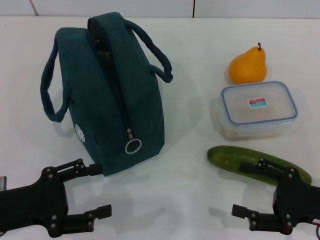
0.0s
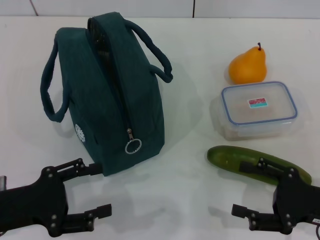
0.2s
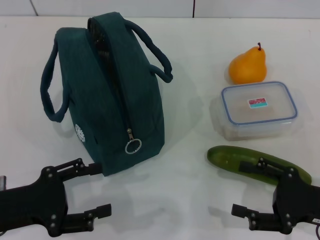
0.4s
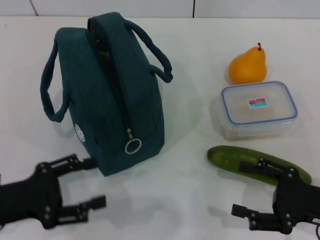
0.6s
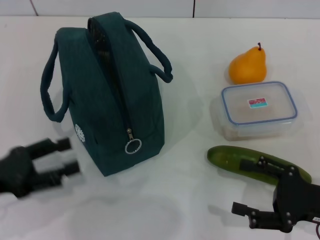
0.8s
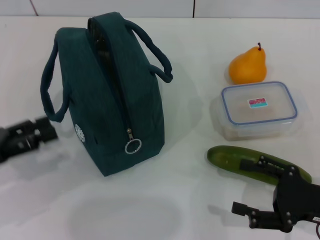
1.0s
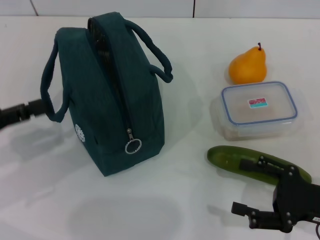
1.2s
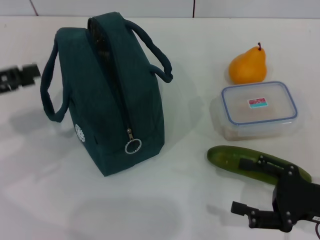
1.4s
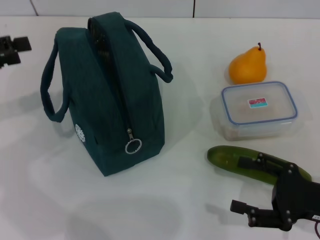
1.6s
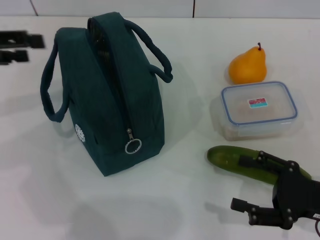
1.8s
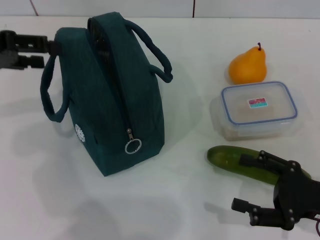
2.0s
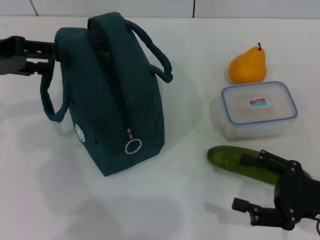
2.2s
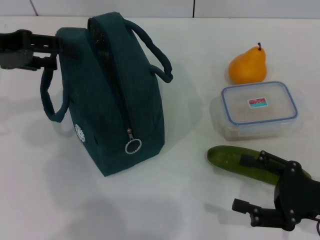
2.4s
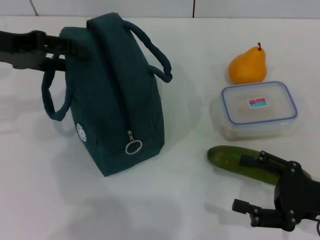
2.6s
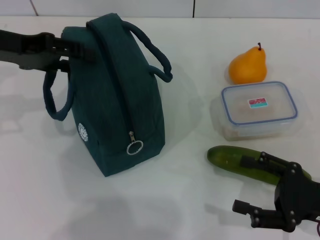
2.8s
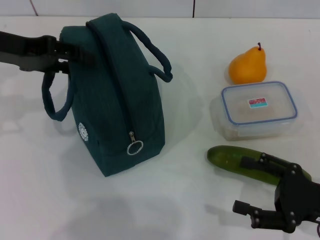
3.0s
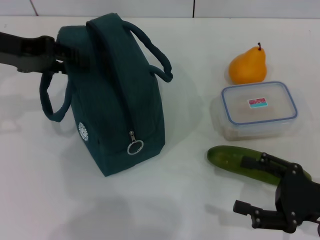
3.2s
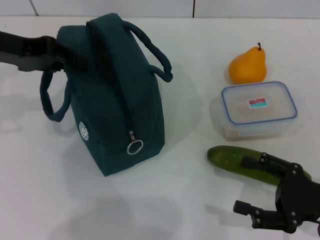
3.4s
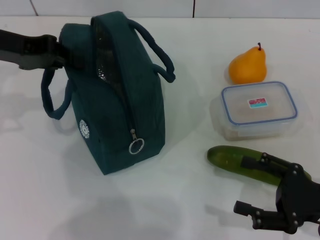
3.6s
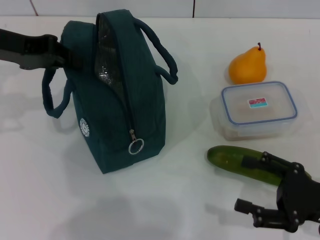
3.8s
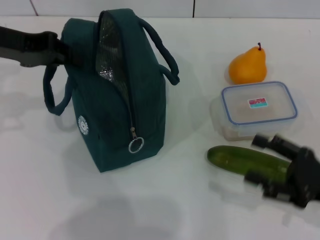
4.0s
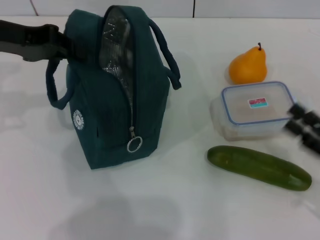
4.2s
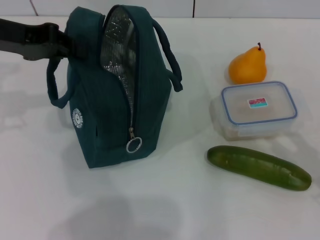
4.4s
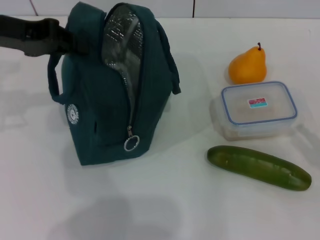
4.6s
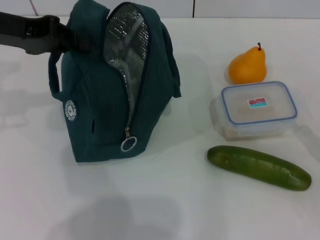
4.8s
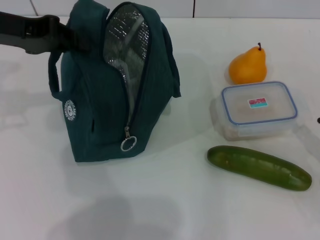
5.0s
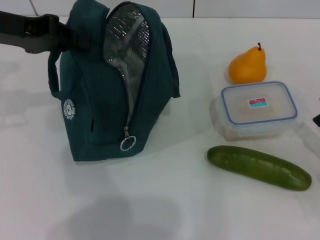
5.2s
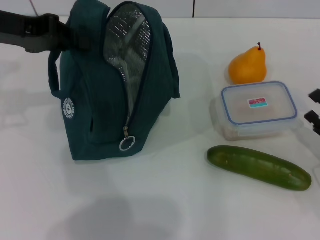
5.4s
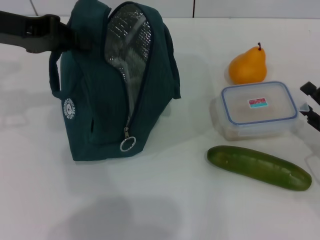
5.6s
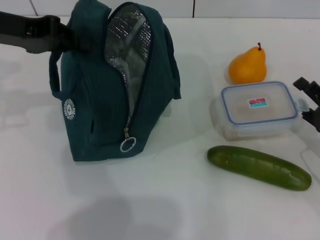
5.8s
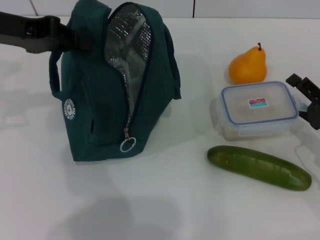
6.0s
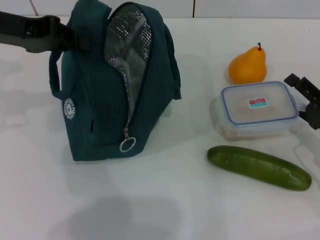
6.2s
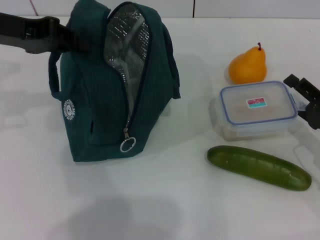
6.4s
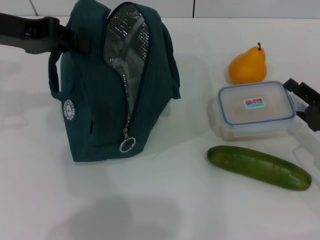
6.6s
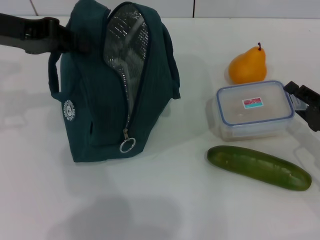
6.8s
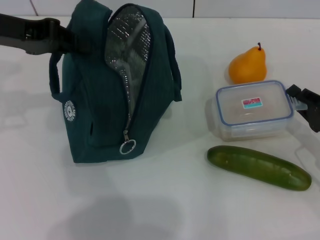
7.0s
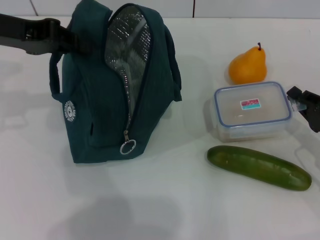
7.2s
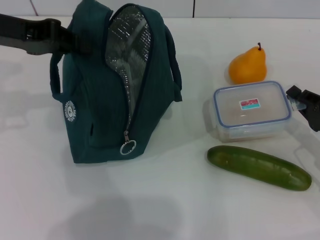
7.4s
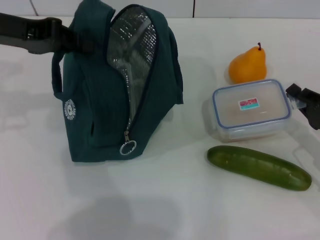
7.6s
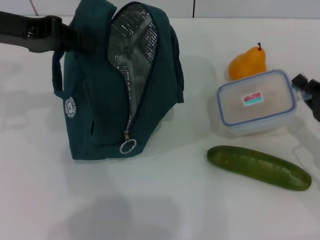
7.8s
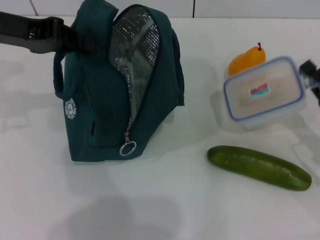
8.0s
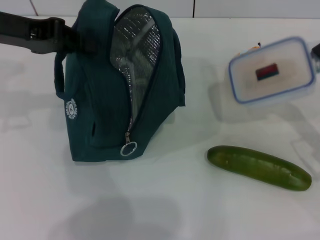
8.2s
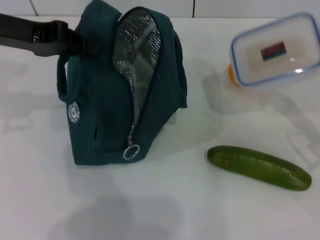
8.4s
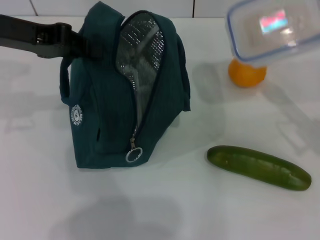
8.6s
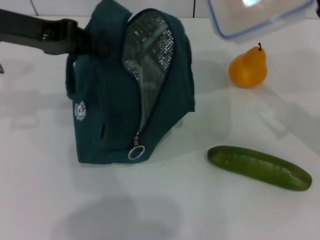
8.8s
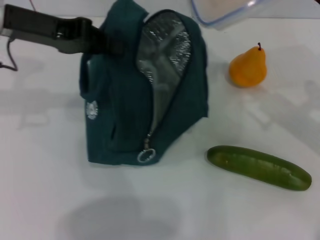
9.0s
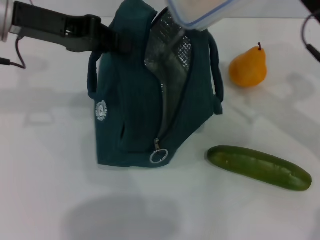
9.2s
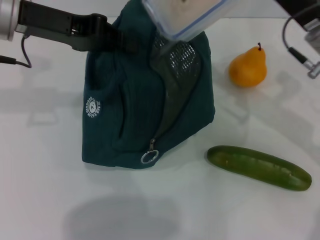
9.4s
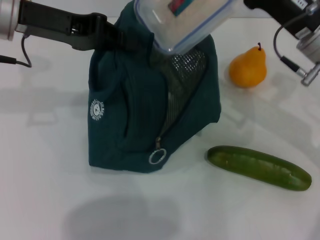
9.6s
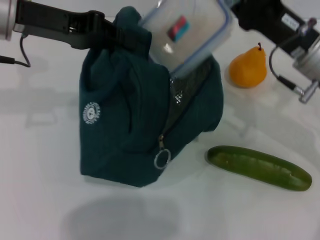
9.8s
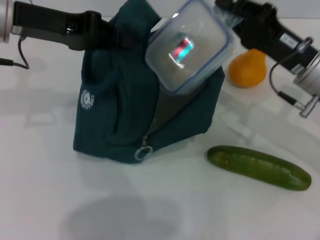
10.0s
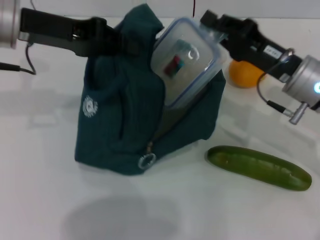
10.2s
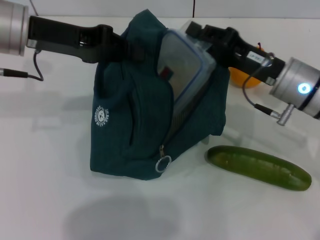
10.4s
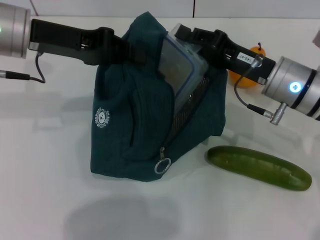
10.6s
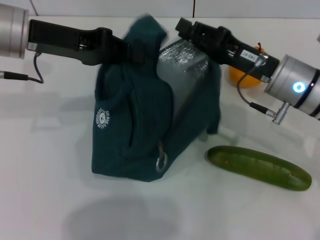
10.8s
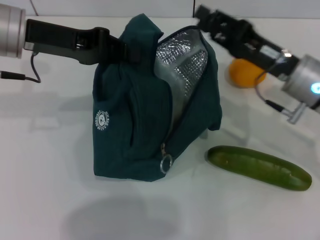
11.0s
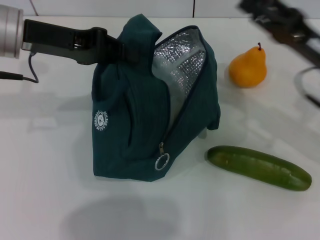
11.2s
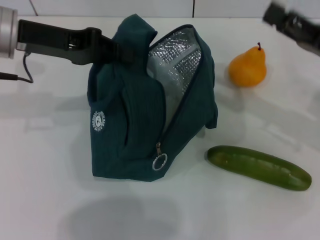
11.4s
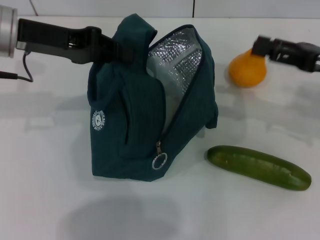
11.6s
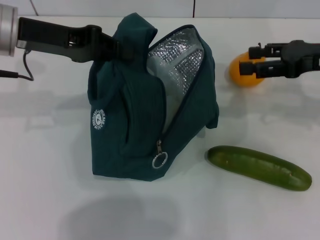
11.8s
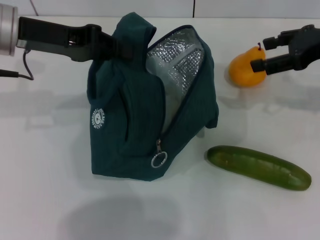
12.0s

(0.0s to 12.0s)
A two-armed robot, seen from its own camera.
Step, 0.0s - 3.6s: Hold the lunch bag with your left hand.
Step, 3.8s - 7.2s: Pick up the lunch box with your right hand.
Step, 7.4s - 11.0s: Place the lunch box into the lunch bag with your right hand.
0.0s - 1.6s: The left gripper goes roughly 20 cm upward, forward and to the left.
1.6s - 3.0s: The left gripper moves to the right and forward, approximately 10 cm.
3.0s - 4.4s: The left gripper closes up. Meanwhile the right gripper changes place by about 5 cm.
4.4s - 6.0s: The right gripper travels forward by approximately 10 cm.
6.0s - 7.6s: The right gripper closes.
7.6s - 9.0s: The right gripper heads upward, forward and to the left, covering about 15 cm.
9.0s - 10.4s: The right gripper is displaced to the left by some 5 cm.
10.4s - 12.0s: The right gripper moves upward and to the right, roughly 15 cm, and opens up.

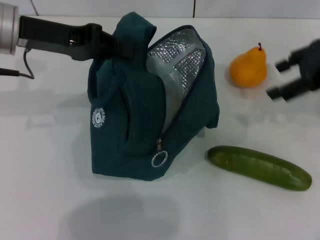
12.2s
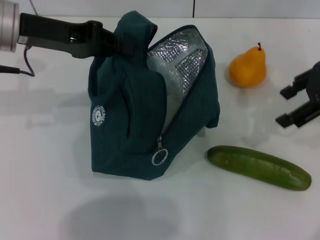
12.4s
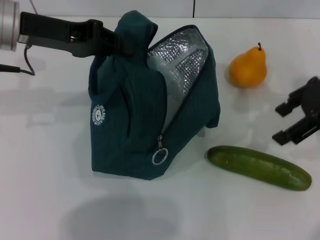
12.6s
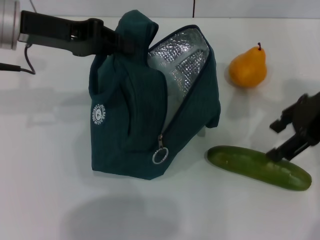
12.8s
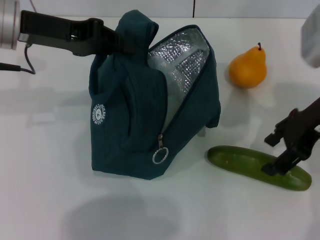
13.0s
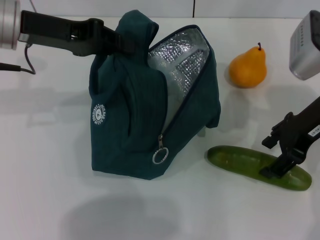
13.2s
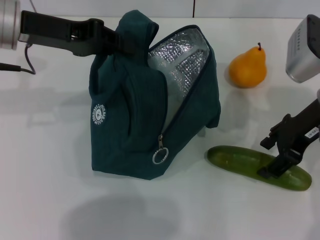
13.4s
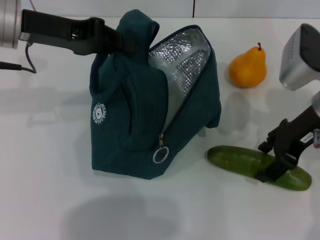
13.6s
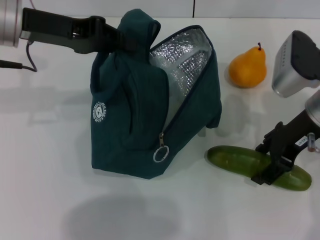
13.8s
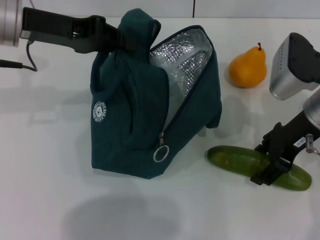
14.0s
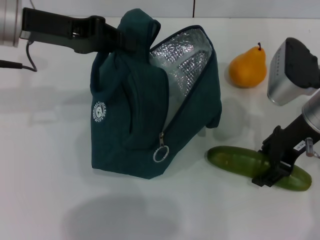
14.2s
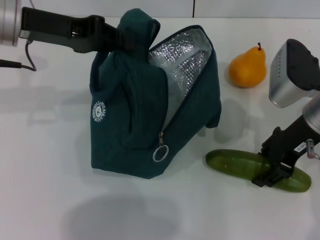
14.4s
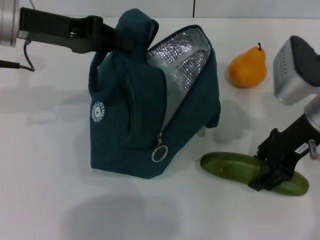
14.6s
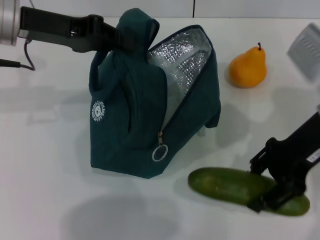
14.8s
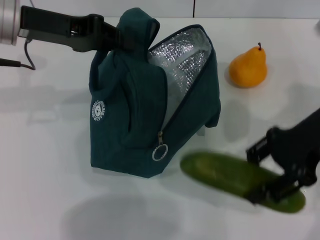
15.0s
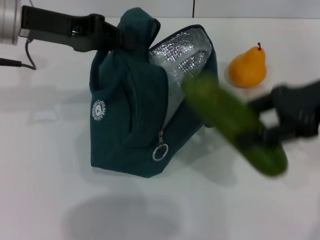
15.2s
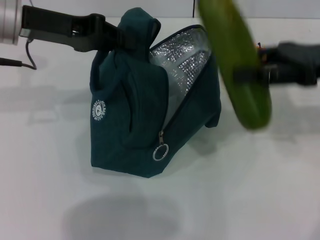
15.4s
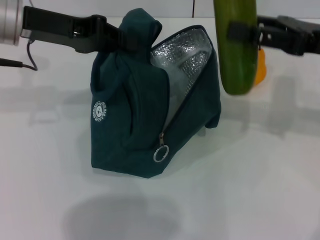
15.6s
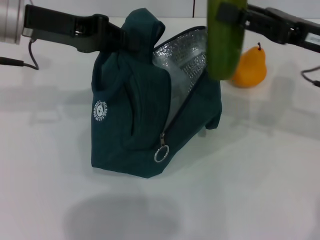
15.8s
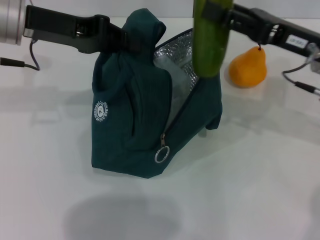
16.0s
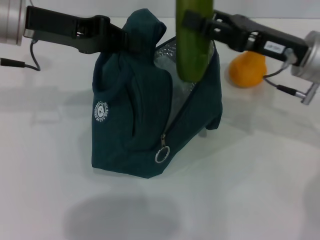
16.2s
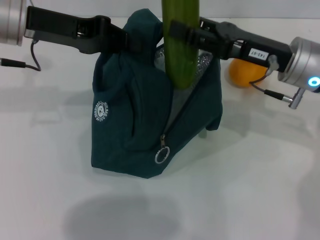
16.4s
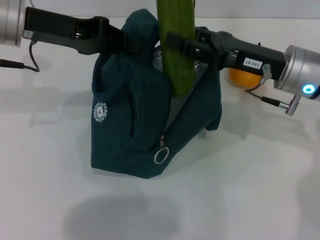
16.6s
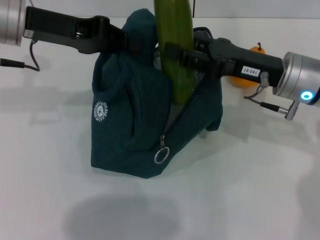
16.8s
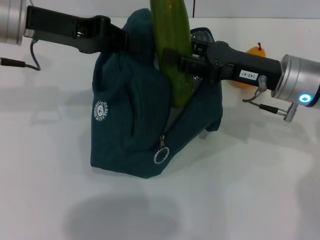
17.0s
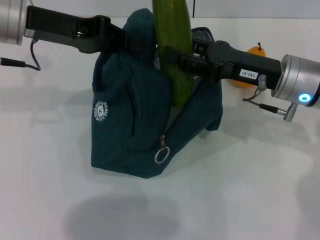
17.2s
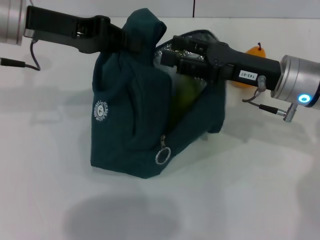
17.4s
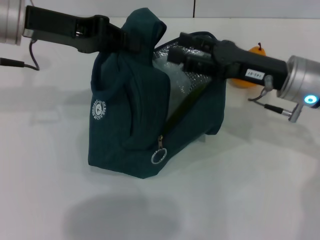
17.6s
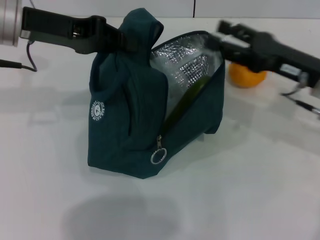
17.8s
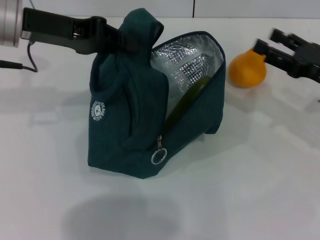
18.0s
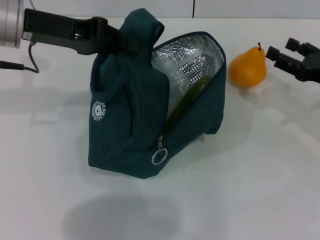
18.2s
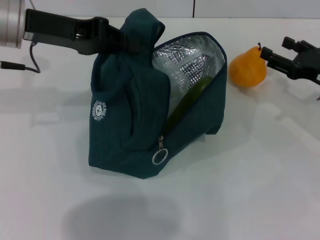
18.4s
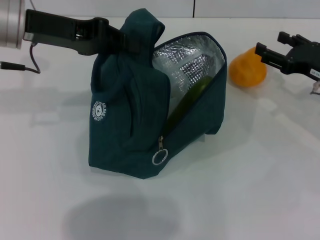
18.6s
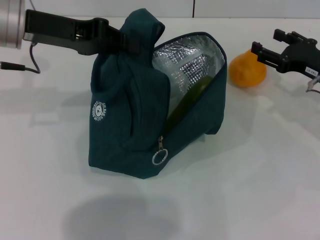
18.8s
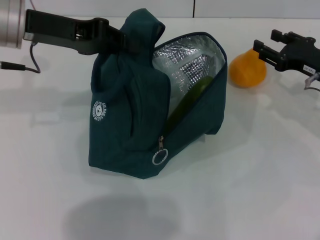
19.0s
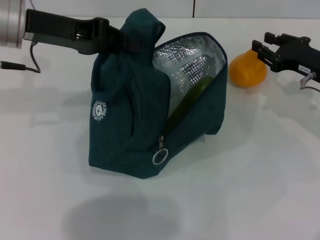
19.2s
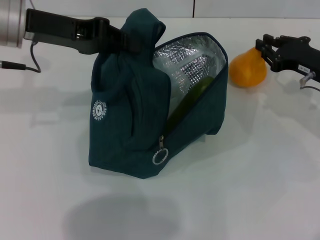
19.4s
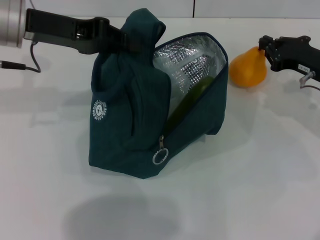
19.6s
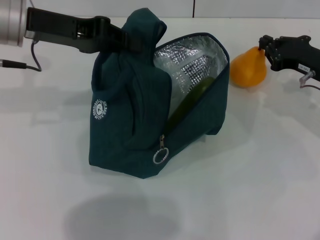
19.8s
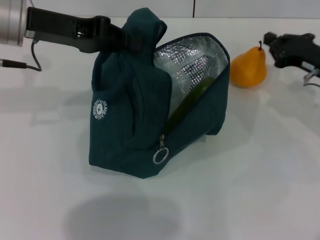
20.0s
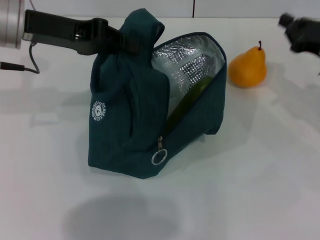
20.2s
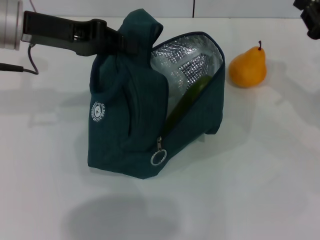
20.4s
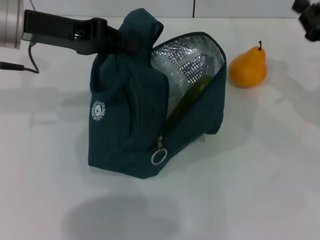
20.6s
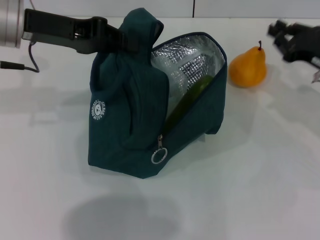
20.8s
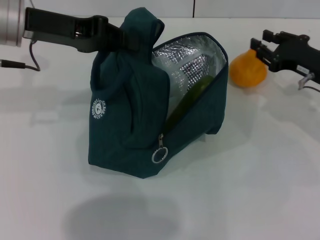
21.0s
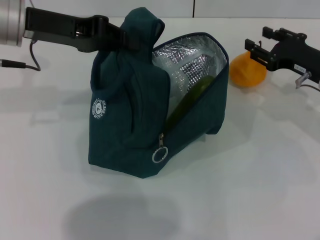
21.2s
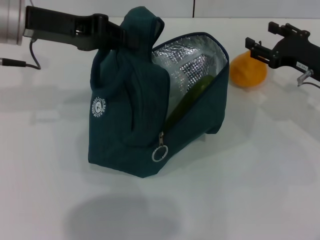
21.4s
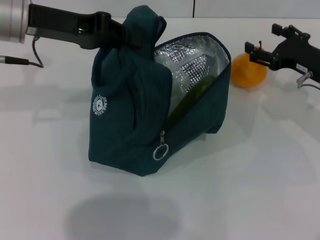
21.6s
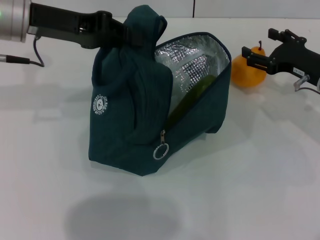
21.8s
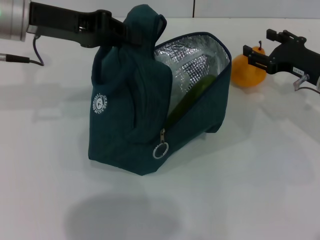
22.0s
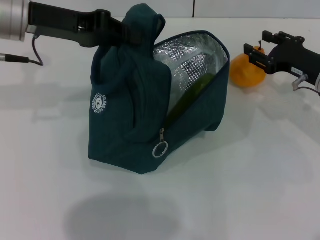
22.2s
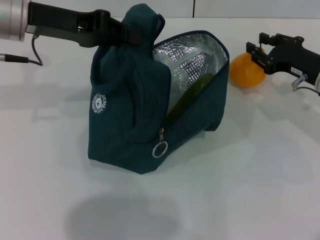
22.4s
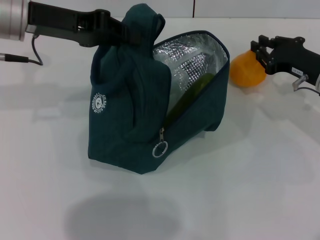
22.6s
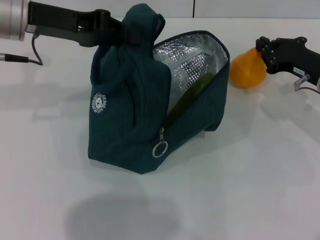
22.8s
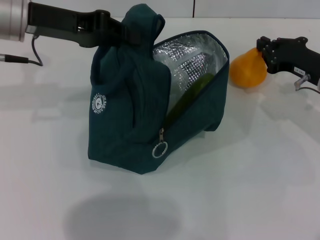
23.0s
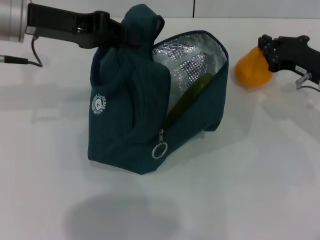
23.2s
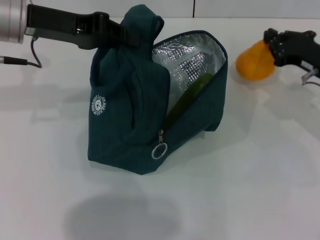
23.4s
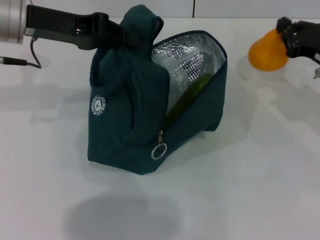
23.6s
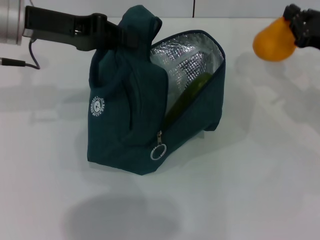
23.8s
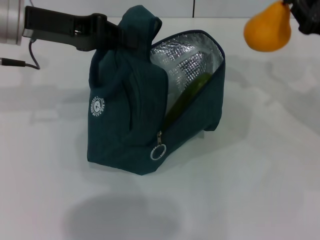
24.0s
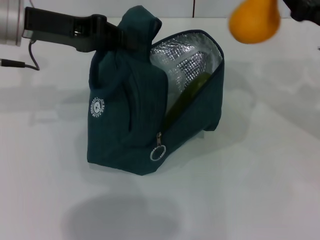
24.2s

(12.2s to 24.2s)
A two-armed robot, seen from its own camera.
Step, 12.2s - 14.2s: Pick up the cucumber with your right hand.
Step, 14.4s - 17.6s: Put the cucumber into the lunch bag with your right hand.
Step, 17.8s - 23.0s: Grab the pear with your right hand.
12.2s - 13.8s: The right gripper travels downward and to the left by about 10 cm.
13.8s - 15.2s: The right gripper moves upward, some 5 cm.
15.2s - 16.6s: The right gripper heads downward and to the left, covering roughly 10 cm.
16.6s - 18.2s: The right gripper goes some 15 cm to the right.
18.2s - 19.8s: The right gripper ends up roughly 5 cm from where it was, and closes its fingers.
19.8s - 21.2s: The right gripper opens its fingers.
21.2s - 22.6s: The right gripper opens, then closes again.
22.6s - 24.2s: The right gripper heads upward, covering roughly 10 cm, and closes up.
